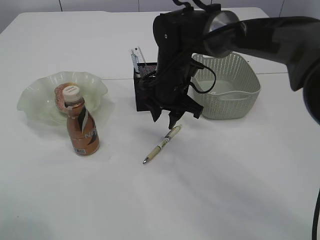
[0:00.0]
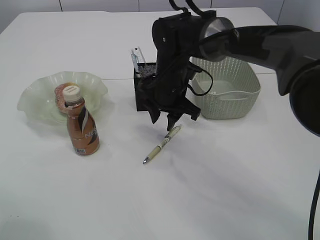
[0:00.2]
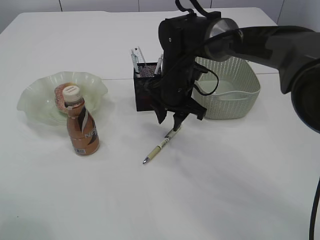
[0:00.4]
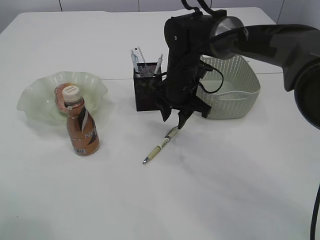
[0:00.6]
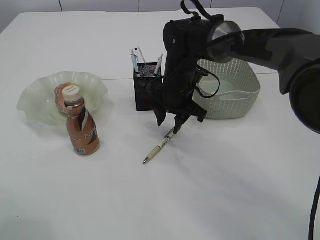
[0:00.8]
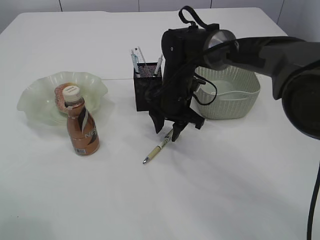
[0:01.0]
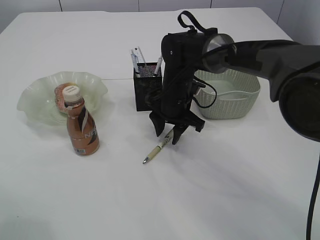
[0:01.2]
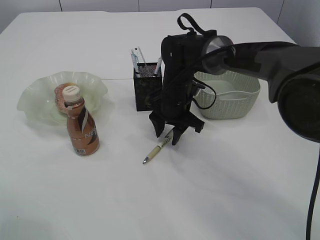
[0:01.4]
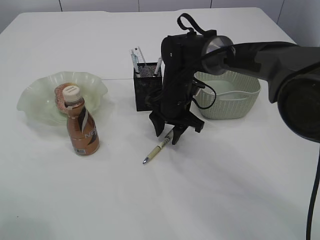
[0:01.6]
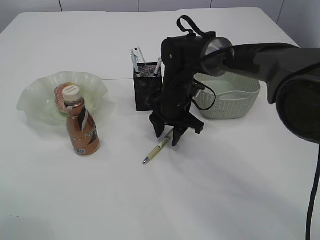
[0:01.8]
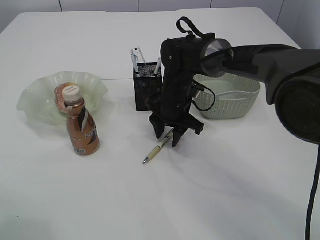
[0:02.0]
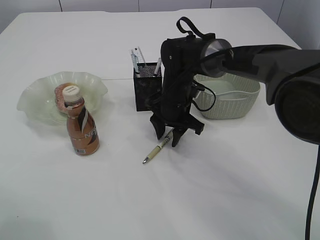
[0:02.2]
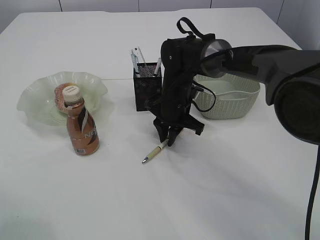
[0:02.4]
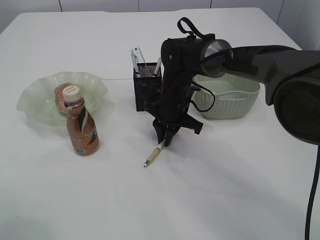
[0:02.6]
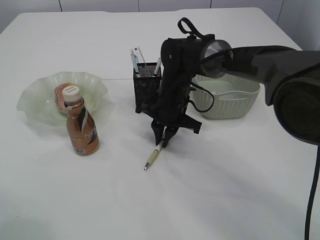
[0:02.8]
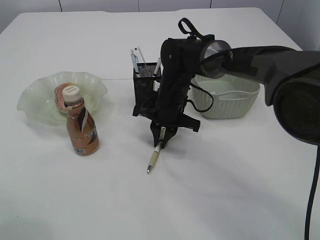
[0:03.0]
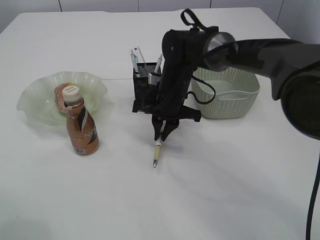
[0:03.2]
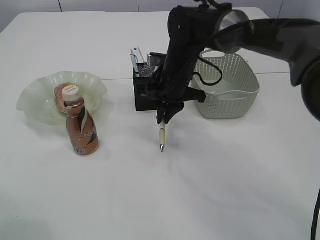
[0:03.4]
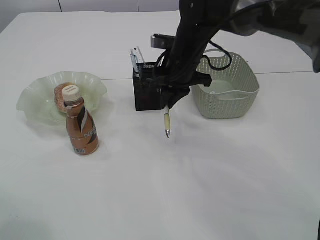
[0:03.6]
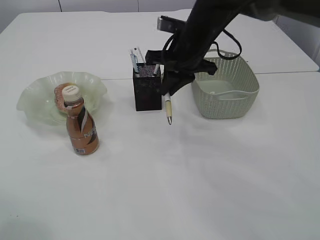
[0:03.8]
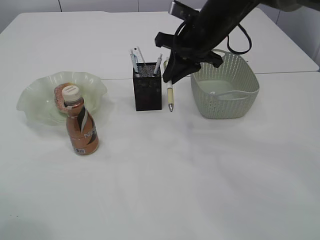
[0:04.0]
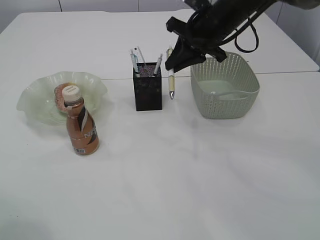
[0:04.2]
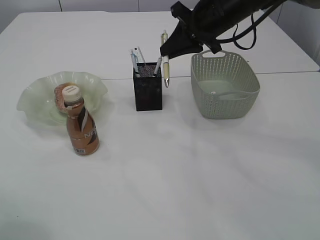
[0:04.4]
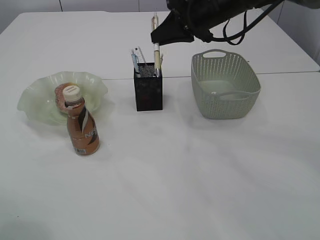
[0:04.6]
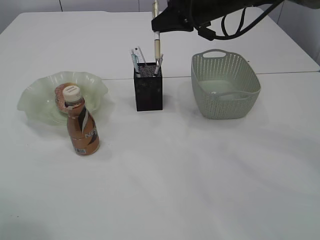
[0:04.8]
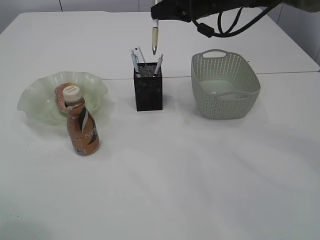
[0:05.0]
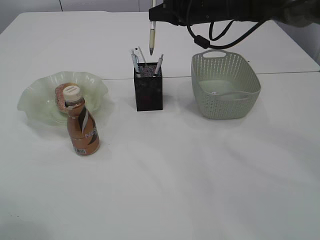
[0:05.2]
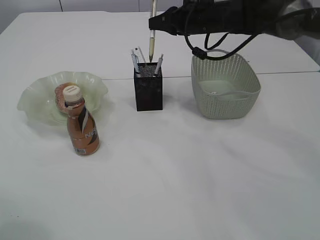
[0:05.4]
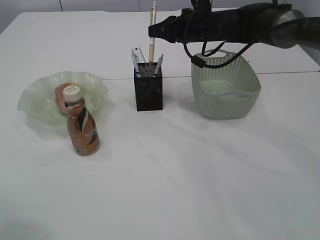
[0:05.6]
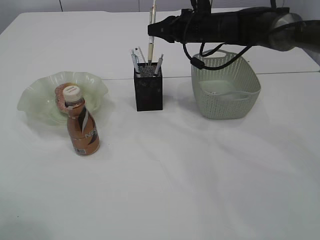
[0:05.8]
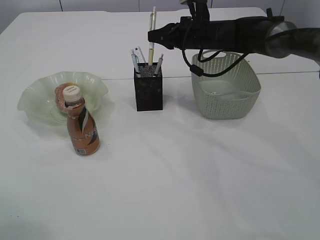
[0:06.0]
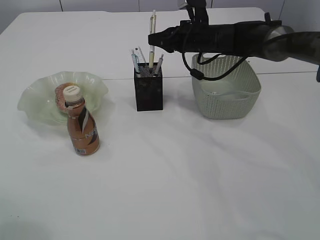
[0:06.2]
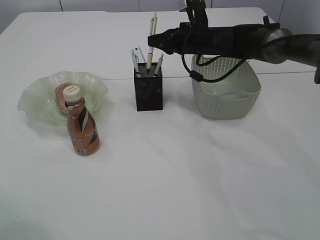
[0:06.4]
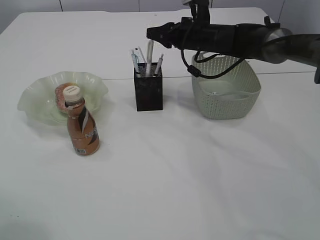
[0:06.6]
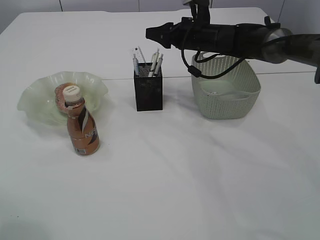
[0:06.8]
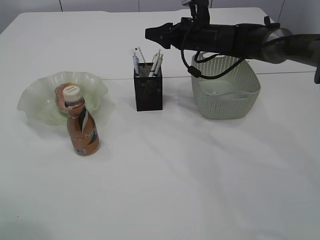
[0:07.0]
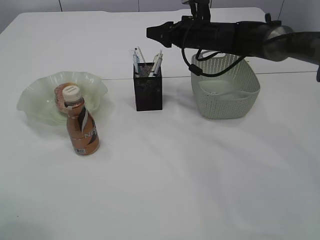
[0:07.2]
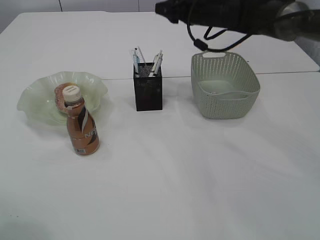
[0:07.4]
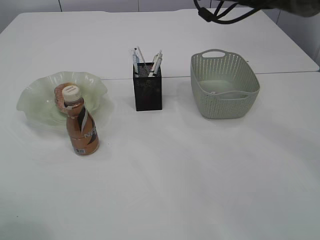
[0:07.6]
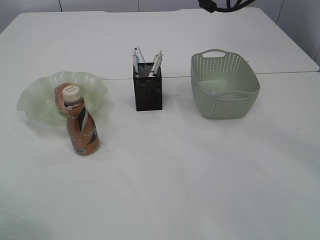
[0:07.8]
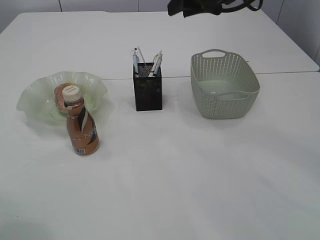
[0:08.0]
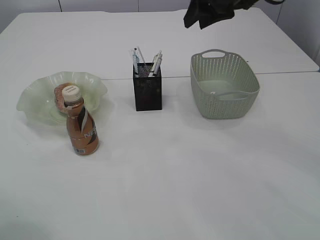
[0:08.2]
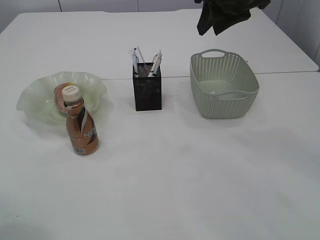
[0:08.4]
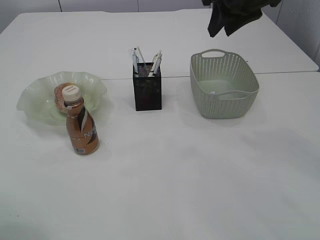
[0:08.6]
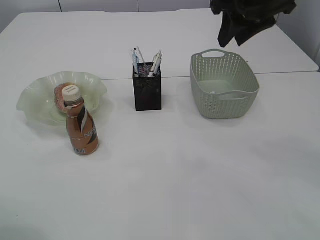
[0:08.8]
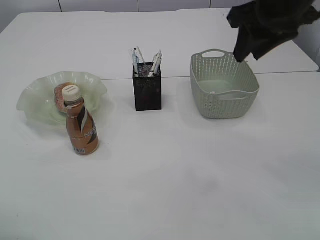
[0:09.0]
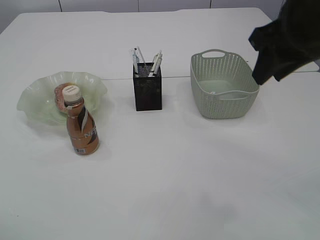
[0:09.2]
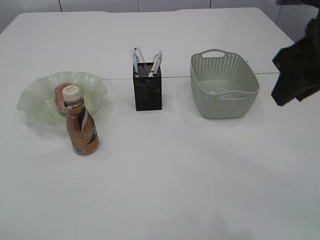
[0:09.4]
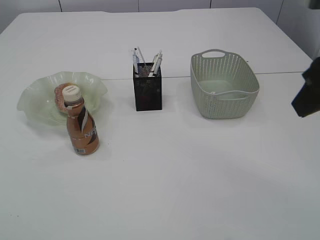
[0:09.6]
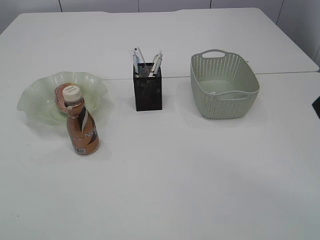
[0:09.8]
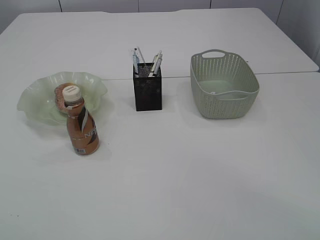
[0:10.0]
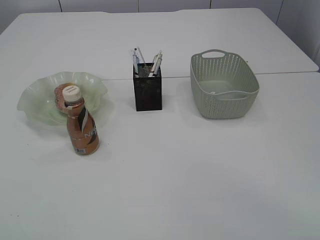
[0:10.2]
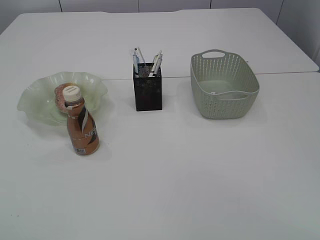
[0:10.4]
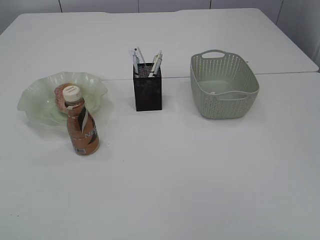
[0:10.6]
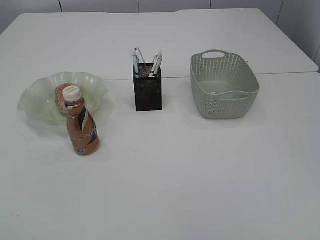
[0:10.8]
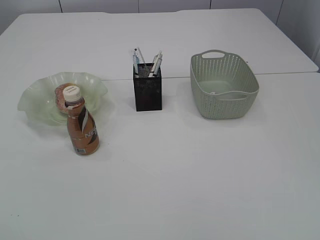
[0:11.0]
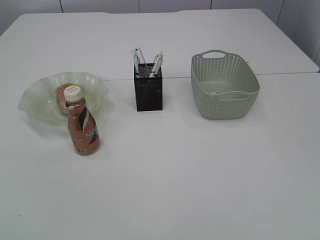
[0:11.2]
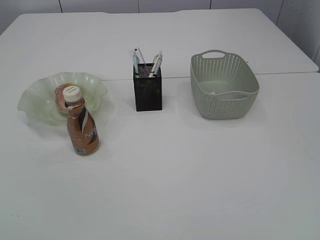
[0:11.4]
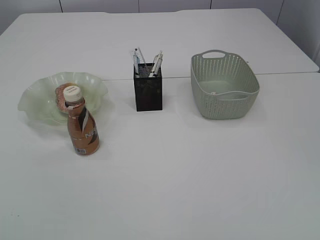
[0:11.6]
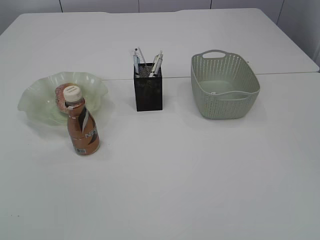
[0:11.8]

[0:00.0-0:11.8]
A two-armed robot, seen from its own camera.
Step, 0.0 to 3.6 s: Pick up the pen with right arm.
Step, 3.8 to 8.6 s: Place the pen into the pen holder.
0.0 to 1.4 s: The right gripper shifts some 5 cm downward.
1.4 to 3.0 s: The right gripper closes up.
3.0 to 4.4 s: The right gripper travels upward and to the right by approximately 20 cm.
4.4 to 6.0 s: The right gripper shifts approximately 10 cm forward and downward.
6.0 to 7.4 s: The right gripper opens its fingers.
7.4 to 8.8 s: The right gripper moves backward and upward, about 15 cm.
8.8 to 10.4 s: The right gripper goes approximately 30 cm backward.

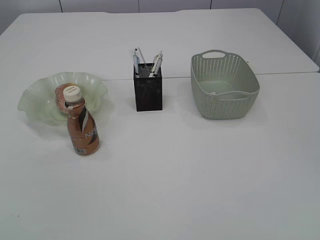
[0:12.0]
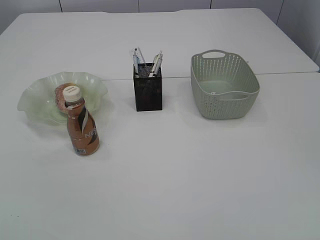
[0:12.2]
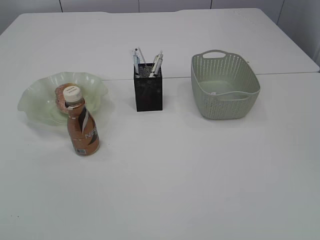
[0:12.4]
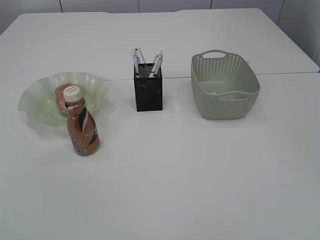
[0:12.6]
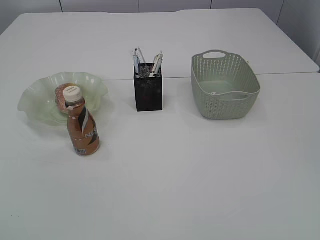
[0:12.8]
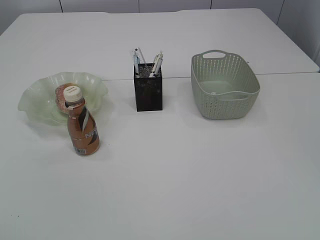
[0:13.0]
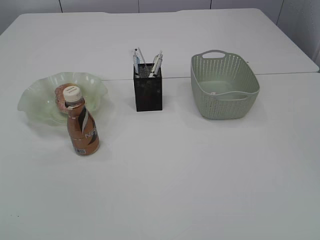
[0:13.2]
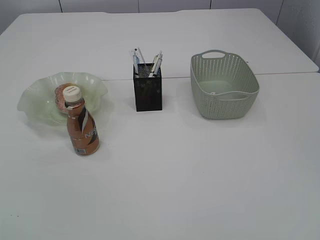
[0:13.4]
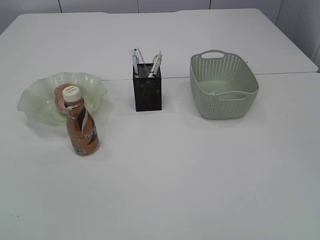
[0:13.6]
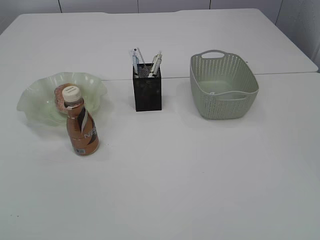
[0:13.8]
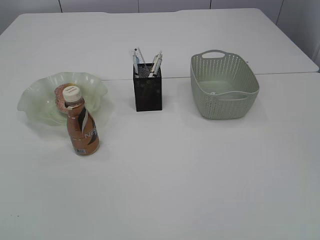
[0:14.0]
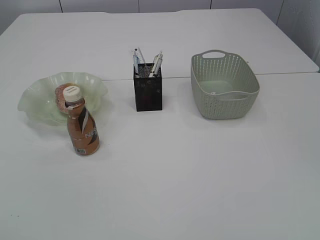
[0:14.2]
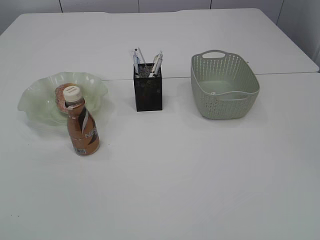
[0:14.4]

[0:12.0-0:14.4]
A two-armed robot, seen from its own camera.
13.2 to 14.4 s: Neither gripper changes place.

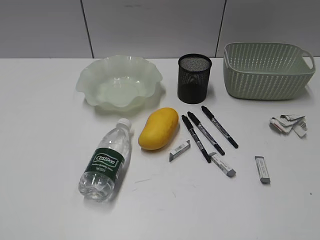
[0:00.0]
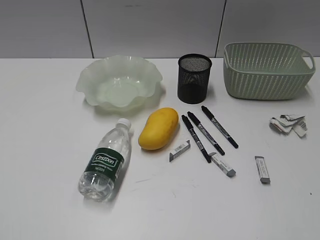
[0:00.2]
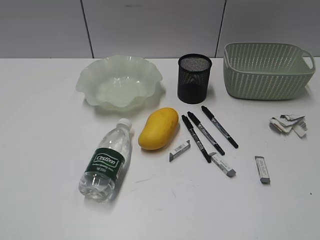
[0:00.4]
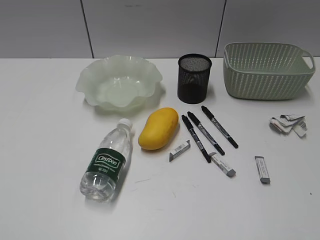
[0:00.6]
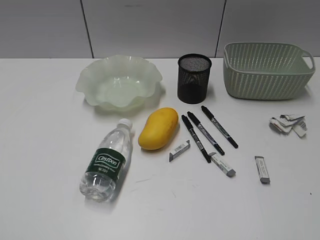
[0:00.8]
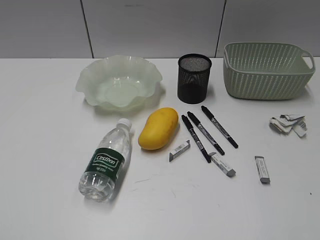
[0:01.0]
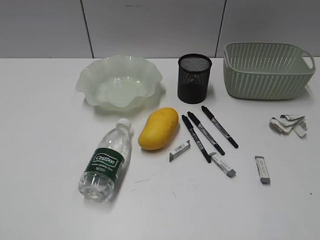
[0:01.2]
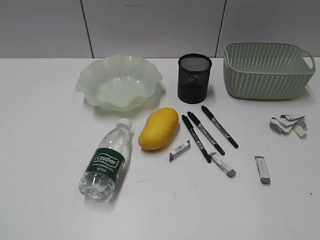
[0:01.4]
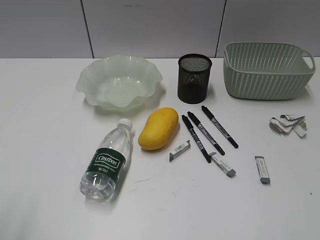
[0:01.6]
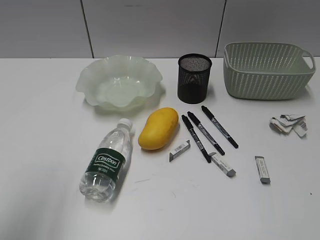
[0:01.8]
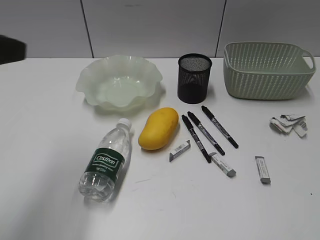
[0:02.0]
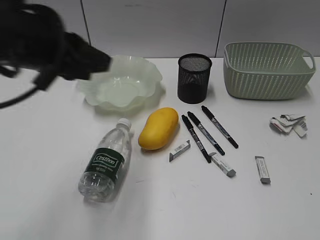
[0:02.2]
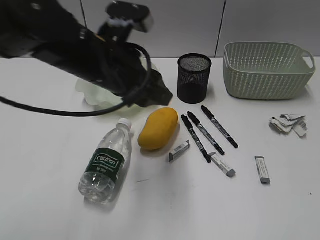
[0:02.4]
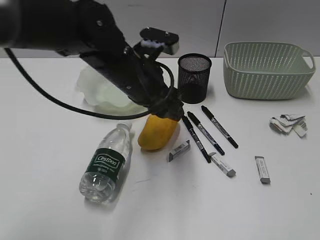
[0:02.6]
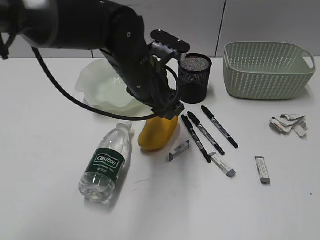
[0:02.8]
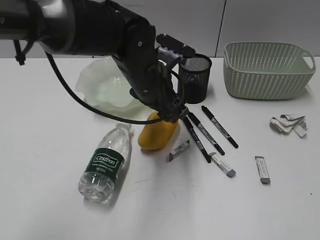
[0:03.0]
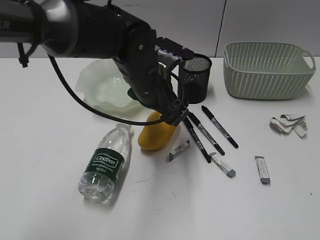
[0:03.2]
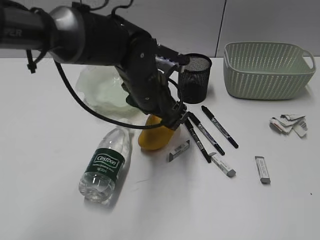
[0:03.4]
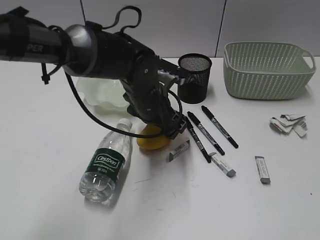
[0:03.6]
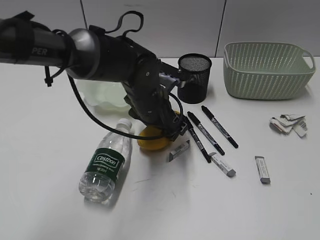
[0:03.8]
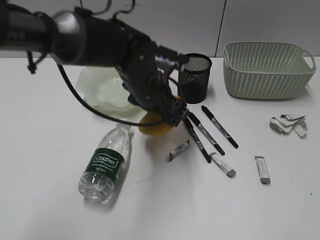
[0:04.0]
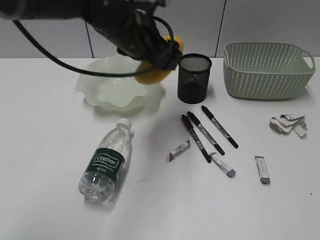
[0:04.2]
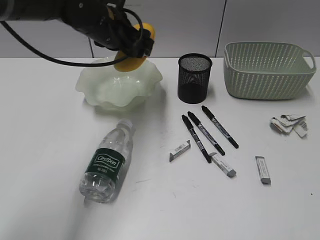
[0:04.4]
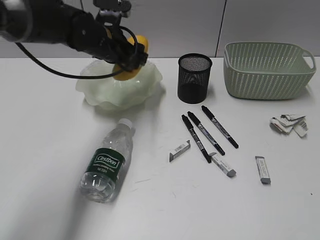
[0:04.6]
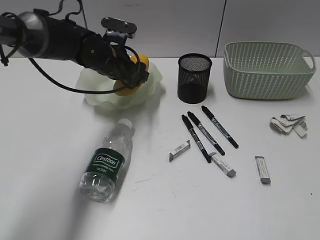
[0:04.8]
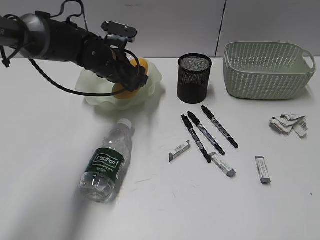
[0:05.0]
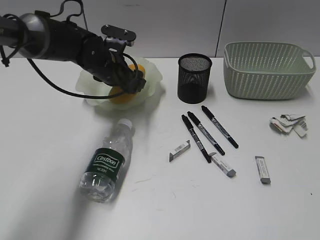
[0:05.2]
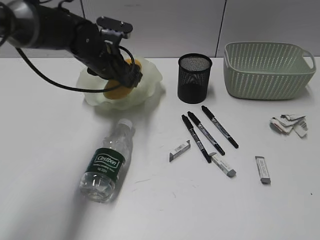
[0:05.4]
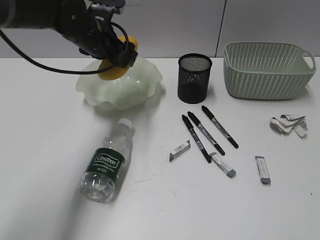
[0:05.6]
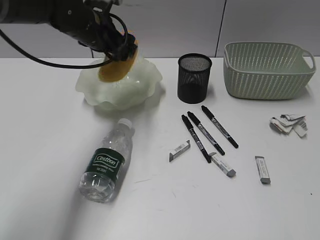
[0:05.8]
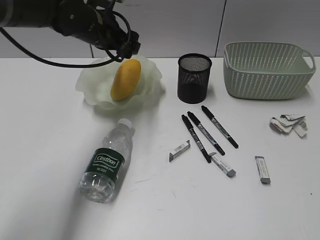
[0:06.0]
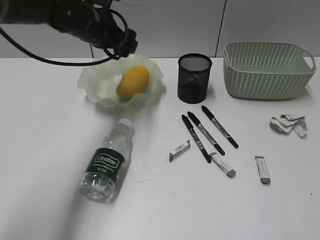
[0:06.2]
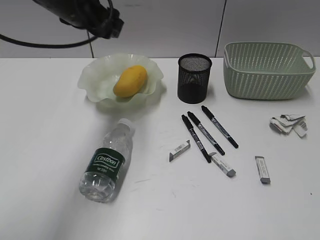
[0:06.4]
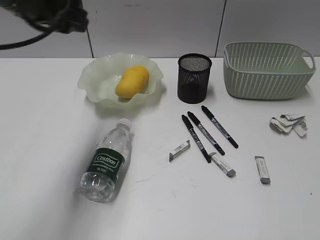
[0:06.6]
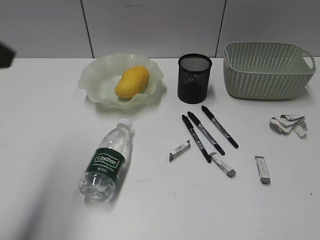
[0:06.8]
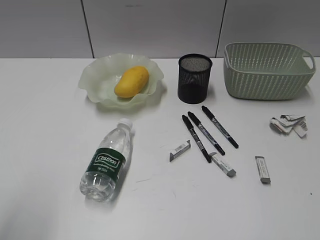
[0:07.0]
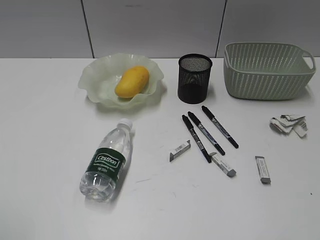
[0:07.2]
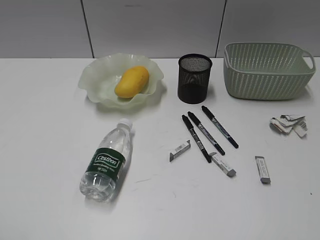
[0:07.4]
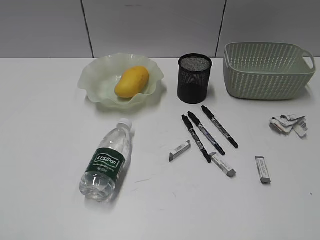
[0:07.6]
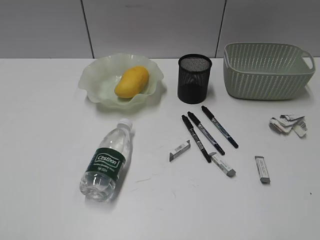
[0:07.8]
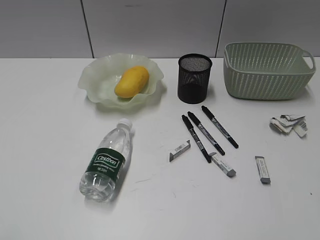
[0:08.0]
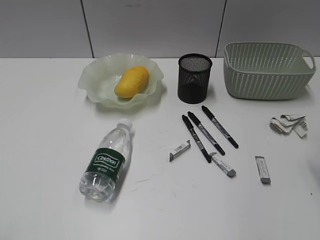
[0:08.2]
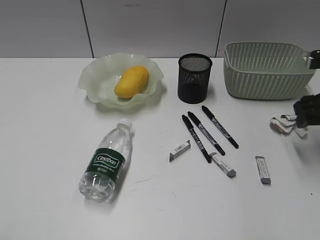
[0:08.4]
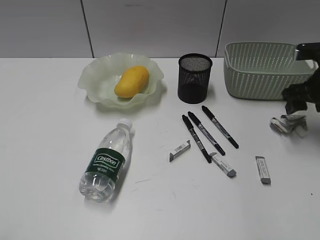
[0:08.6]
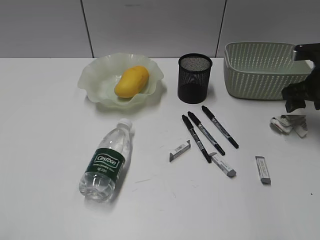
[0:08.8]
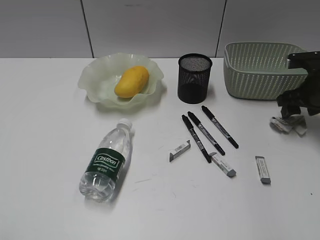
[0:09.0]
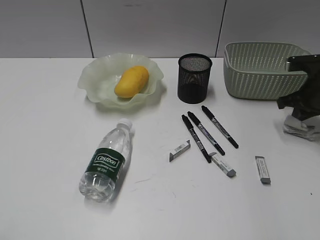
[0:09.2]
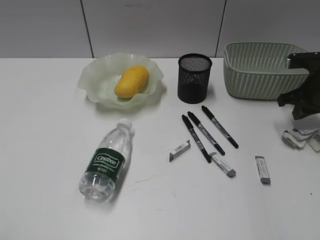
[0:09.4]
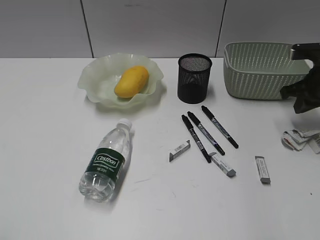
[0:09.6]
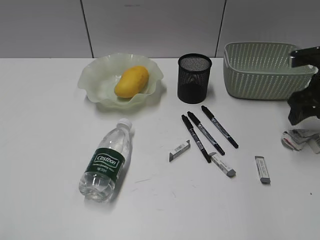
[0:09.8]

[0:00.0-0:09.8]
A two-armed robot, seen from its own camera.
Step, 1.4 to 3.8 s: Grasp the mango with left gripper.
Step, 4.0 to 5.8 s: Place the mango in the plate with left gripper.
1.4 to 2.8 s: The left gripper moves forward and to the right, roughly 40 cm, and opens.
2.8 to 4.2 s: The left gripper shifts by some 5 cm.
4.2 to 5.6 s: The left gripper travels to the left and forward by about 10 cm, and travels downward and back again, about 10 cm each way.
5.6 to 7.0 s: The left gripper moves backward and to the left, approximately 35 cm.
7.0 to 8.4 s: The right gripper is displaced forward by approximately 30 cm, and opens. The left gripper goes approximately 10 cm backward.
8.4 to 9.8 s: The right gripper goes approximately 5 cm forward, and closes and opens again.
